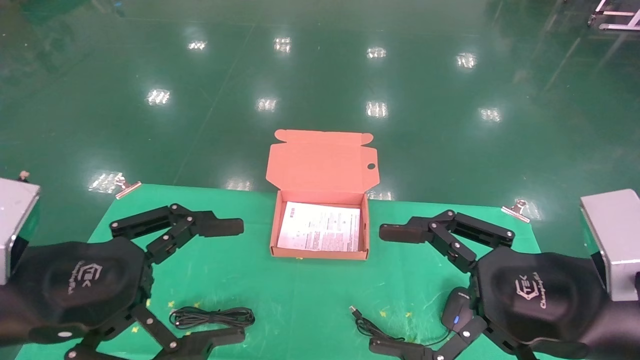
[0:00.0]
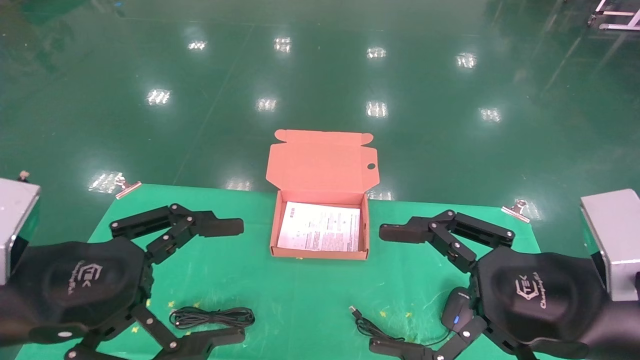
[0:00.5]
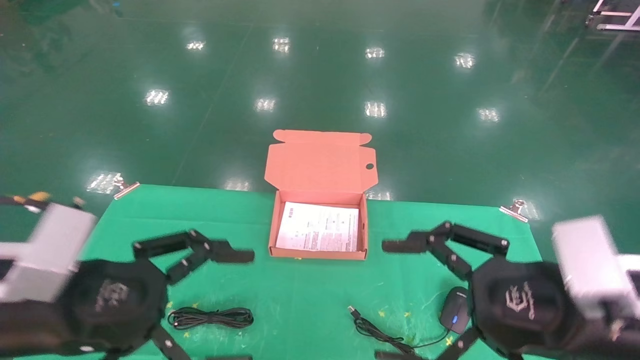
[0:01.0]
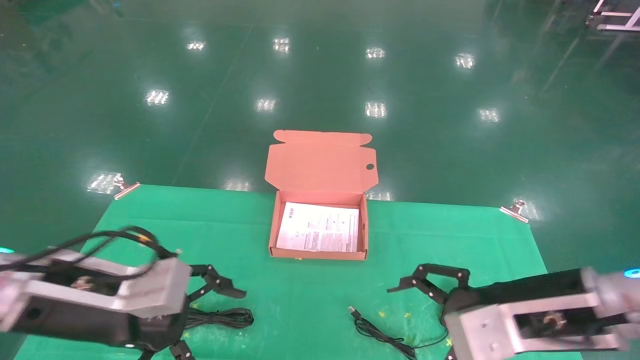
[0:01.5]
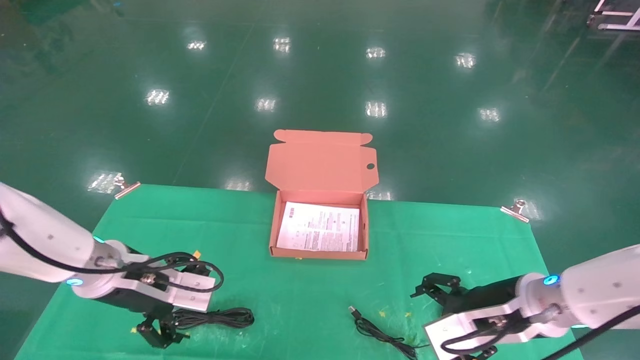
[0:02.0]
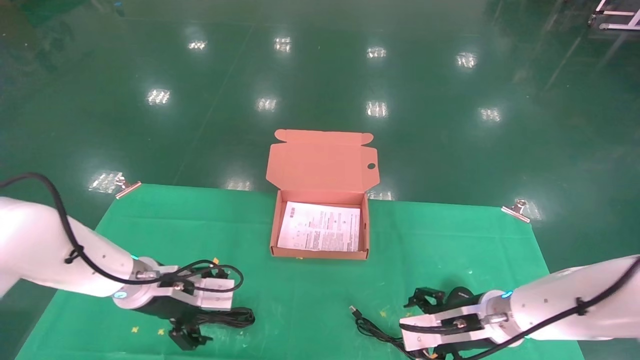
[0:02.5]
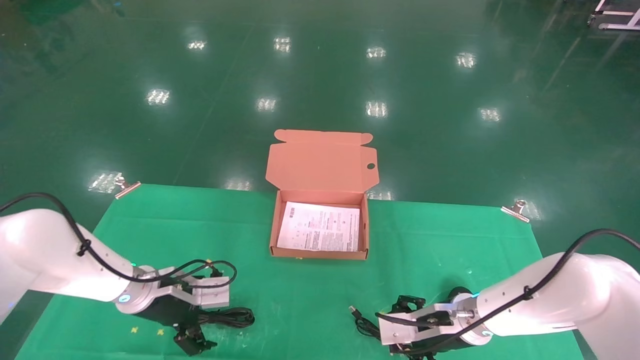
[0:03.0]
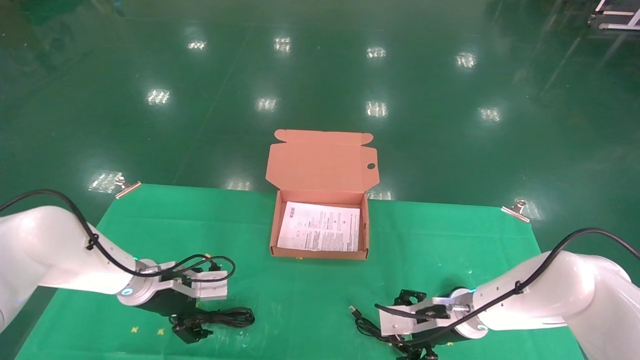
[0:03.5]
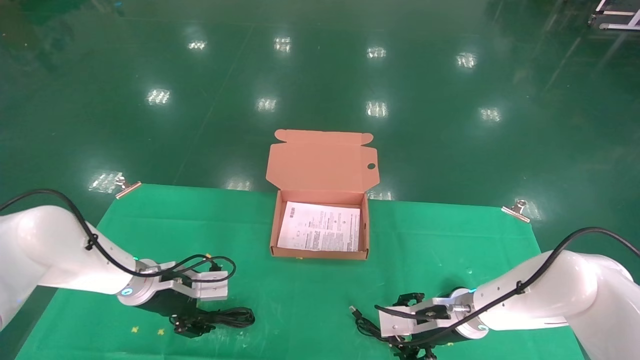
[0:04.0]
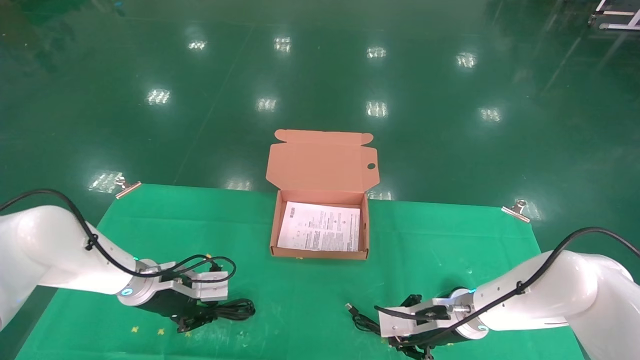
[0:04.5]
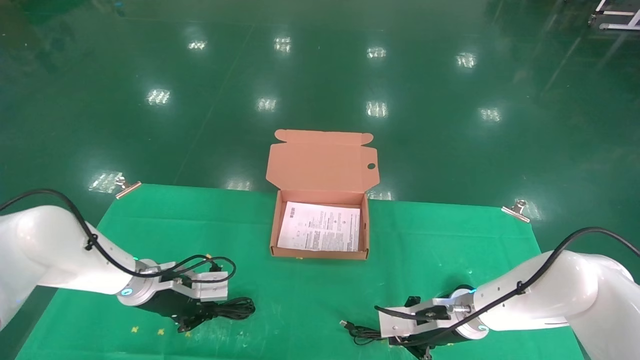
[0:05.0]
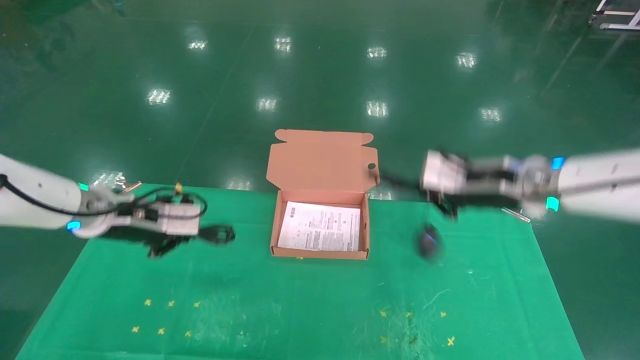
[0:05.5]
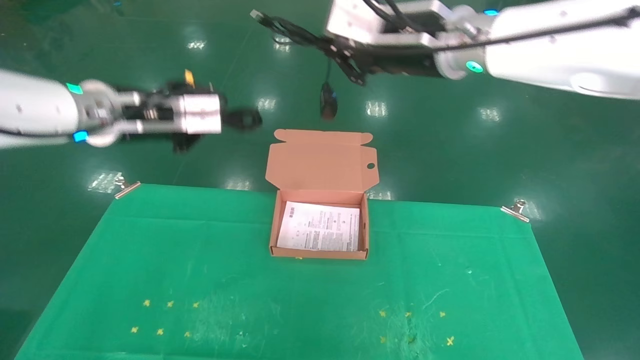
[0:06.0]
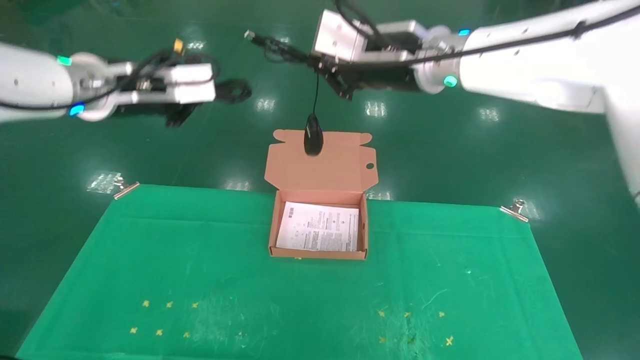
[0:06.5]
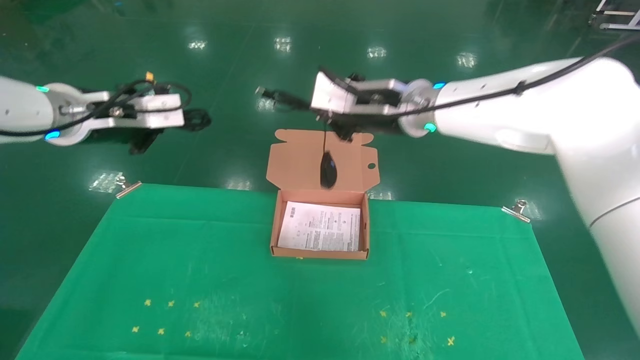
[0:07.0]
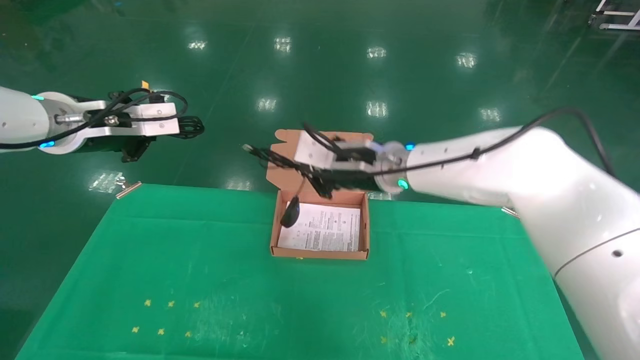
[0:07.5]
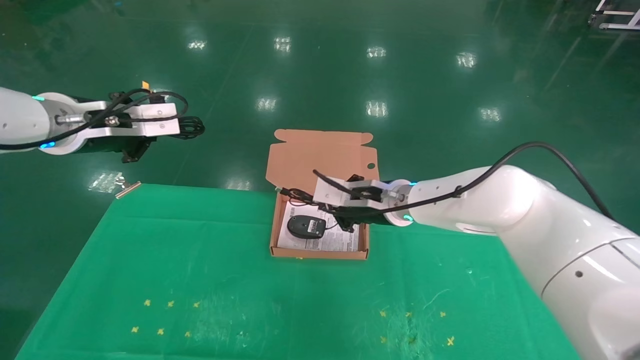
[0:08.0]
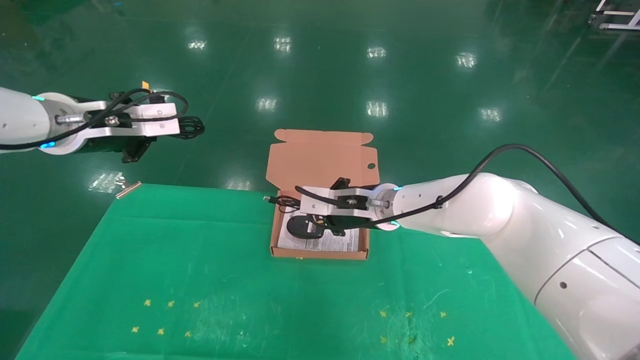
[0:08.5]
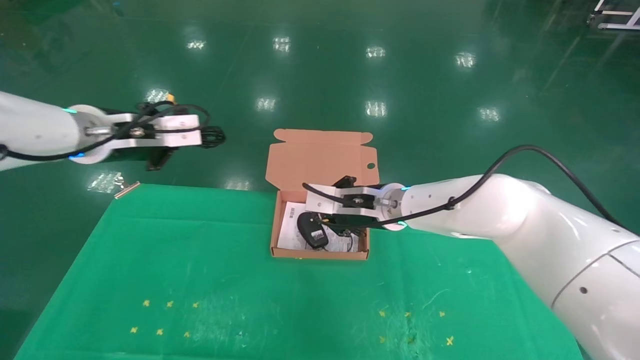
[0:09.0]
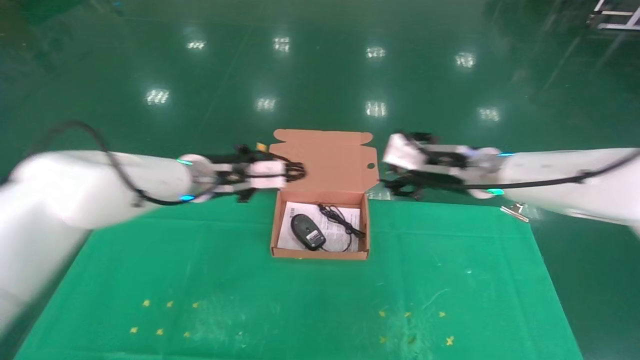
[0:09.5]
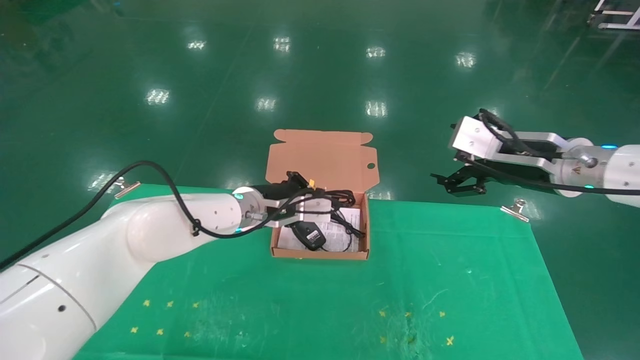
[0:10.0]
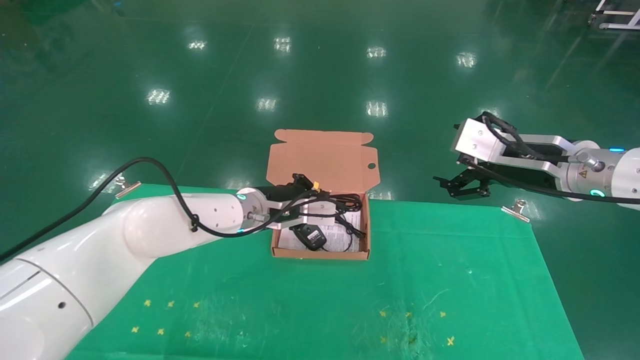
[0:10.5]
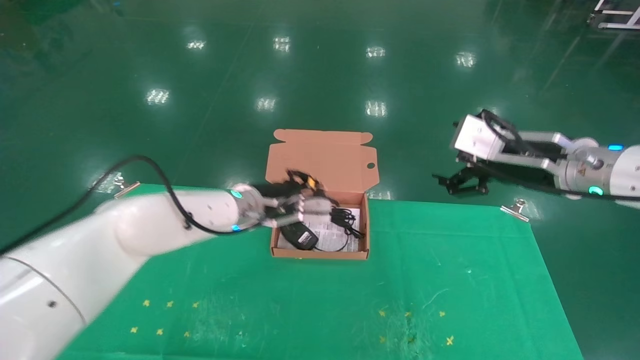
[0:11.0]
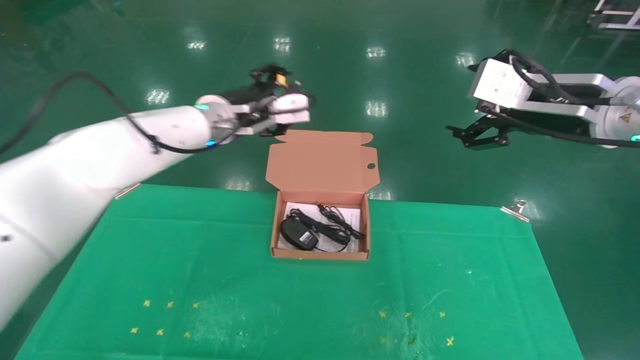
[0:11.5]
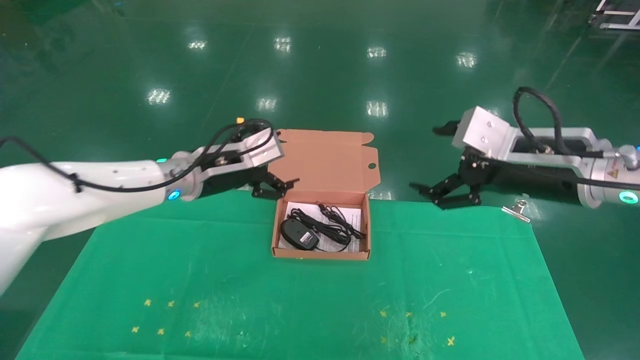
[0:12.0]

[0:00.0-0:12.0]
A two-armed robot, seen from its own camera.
Task of the whole recording: grasp data cable left put into box grasp mouse right put into box.
Step, 0:01.0 to 0:06.0: Grab and pick up both the mouse and power cord from the accessory packaging area at the same time.
Step, 0:06.5 to 0:12.0: Place the mouse and power cord into the box.
0:00.0 to 0:02.0: Both grippers move forward and downward, approximately 15 cm.
0:02.0 to 0:04.0: Both grippers move forward and downward, roughly 15 cm.
0:04.0 to 0:06.0: The grippers both shift upward by about 35 cm. The left gripper closes; the right gripper closes up.
0:06.0 to 0:08.0: The left gripper heads to the left, covering approximately 5 cm; the right gripper is displaced downward by roughly 20 cm.
0:08.0 to 0:10.0: The right gripper heads to the right and backward, covering some 20 cm, and opens up. The left gripper is displaced to the right, downward and forward by some 25 cm.
0:10.0 to 0:12.0: The left gripper goes approximately 10 cm to the left and upward, and opens. The right gripper is displaced backward by approximately 5 cm.
